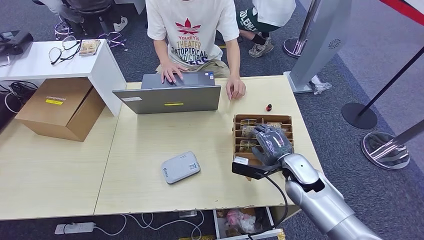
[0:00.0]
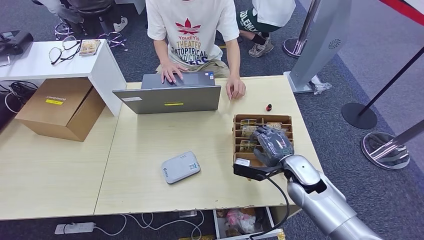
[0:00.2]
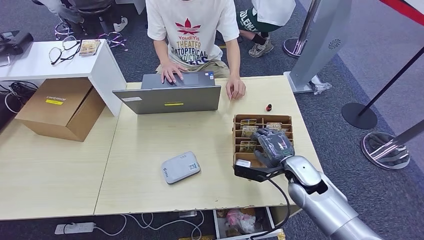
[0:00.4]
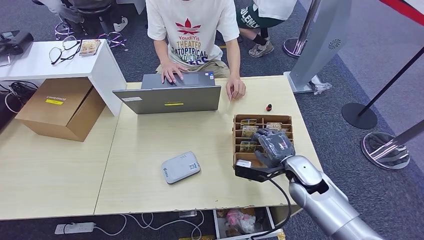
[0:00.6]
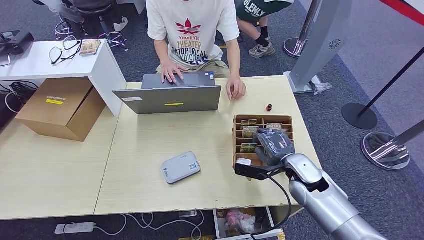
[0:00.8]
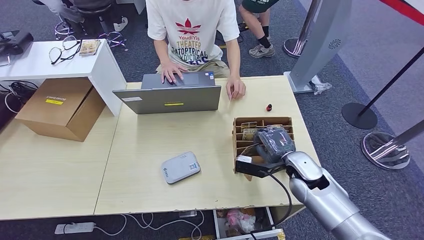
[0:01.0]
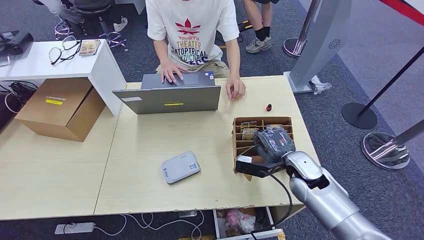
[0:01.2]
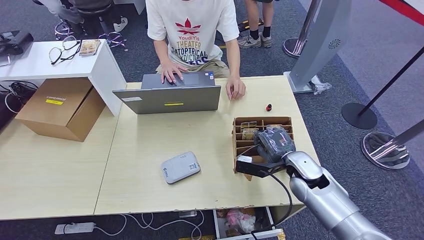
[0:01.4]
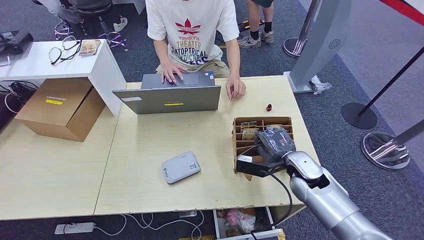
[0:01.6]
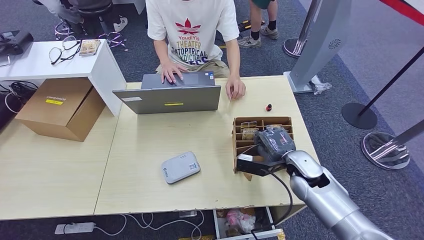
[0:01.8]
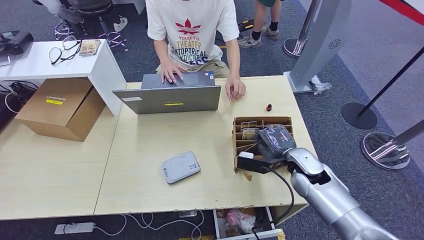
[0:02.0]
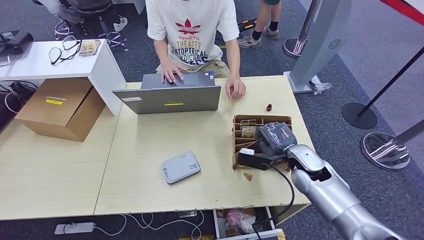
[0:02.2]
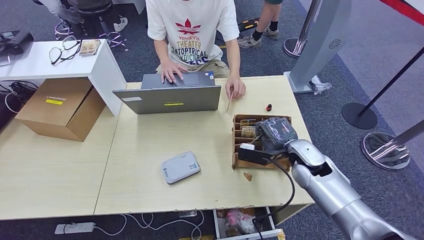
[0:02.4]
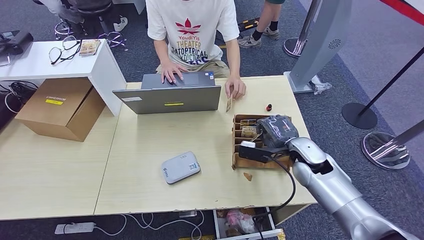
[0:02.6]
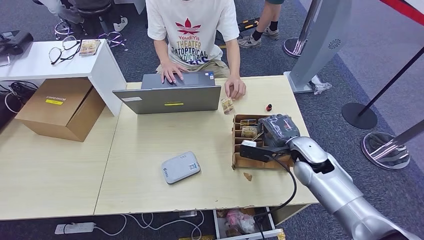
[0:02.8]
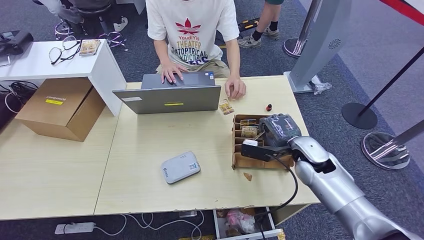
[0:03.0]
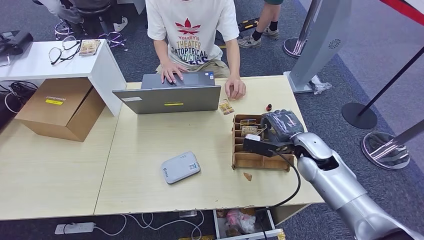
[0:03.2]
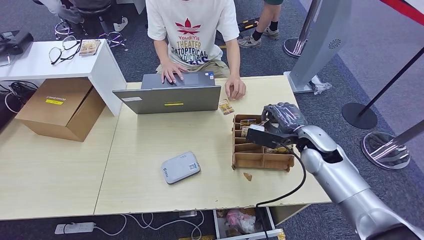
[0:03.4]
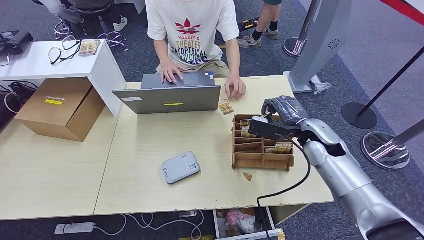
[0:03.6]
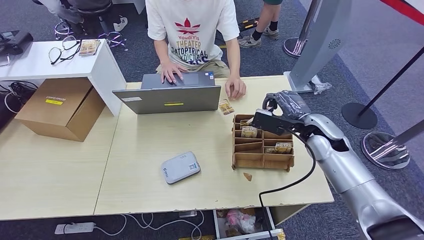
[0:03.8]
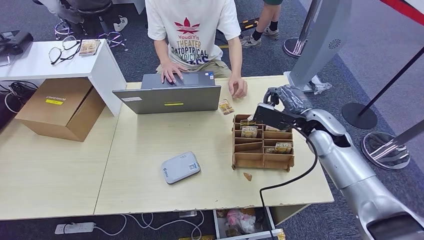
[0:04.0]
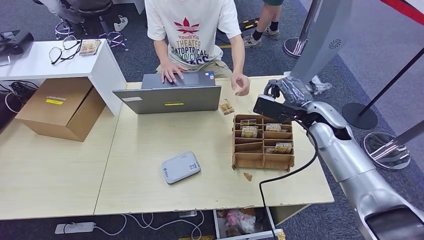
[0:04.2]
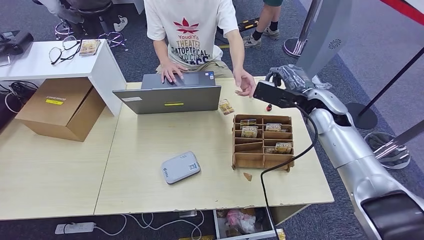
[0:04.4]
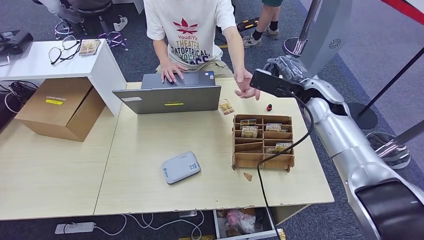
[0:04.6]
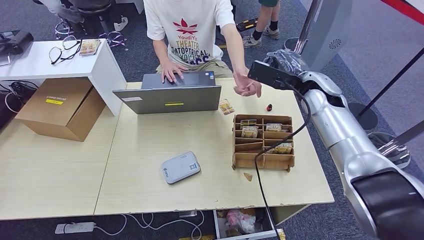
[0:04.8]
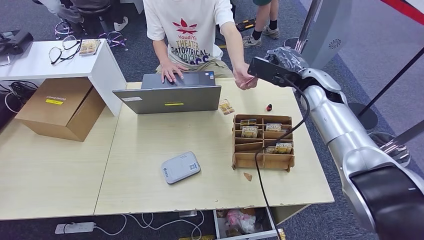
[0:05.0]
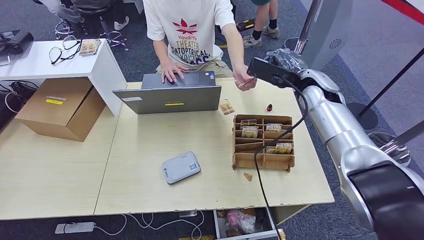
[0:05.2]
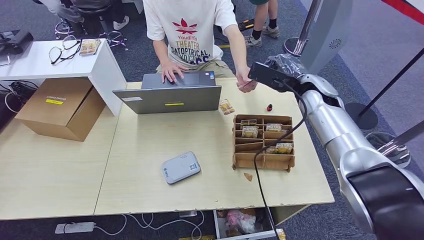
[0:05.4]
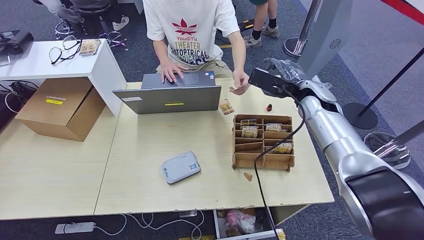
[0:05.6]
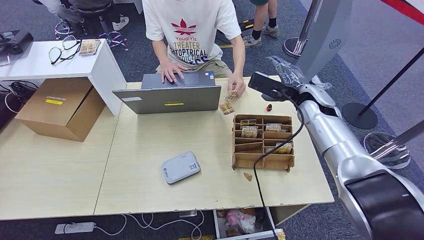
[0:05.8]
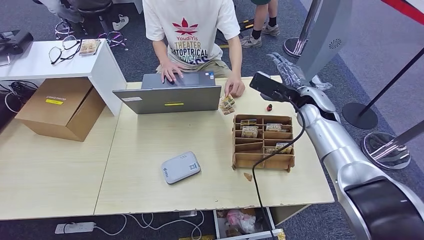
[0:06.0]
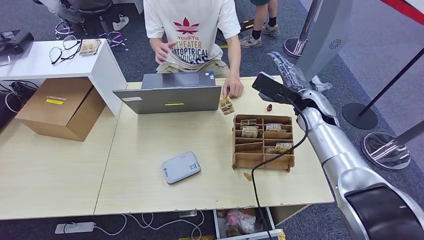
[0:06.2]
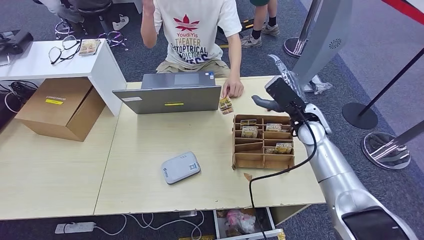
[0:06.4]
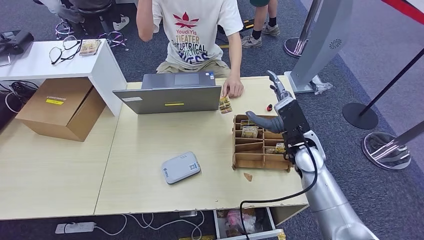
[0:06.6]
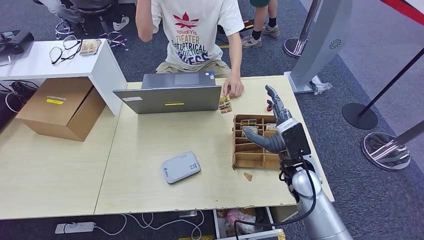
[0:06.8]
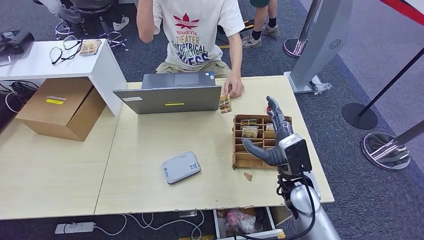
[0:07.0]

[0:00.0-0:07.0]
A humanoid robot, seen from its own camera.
Step, 0:00.0 to 0:04.0: Pick up the room key from the key card box.
Step, 0:04.2 to 0:07.0: Hand the room key to the person.
0:00.0 to 0:02.8: The hands move only a little.
0:02.8 to 0:04.2: The right hand moves upward and forward, approximately 10 cm.
0:04.2 to 0:05.6: The right hand moves forward, approximately 5 cm.
0:05.6 to 0:07.0: The right hand moves backward, downward and to the left, about 25 cm.
